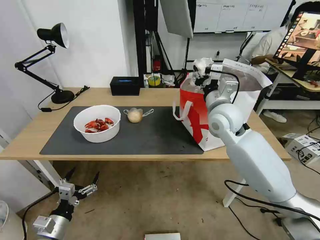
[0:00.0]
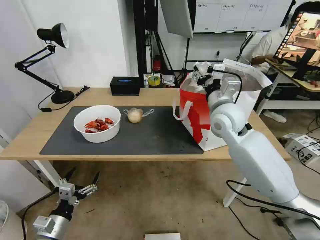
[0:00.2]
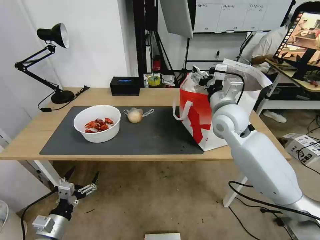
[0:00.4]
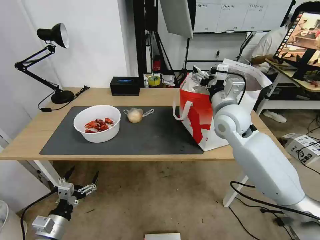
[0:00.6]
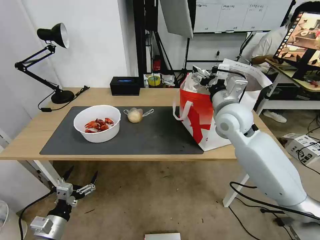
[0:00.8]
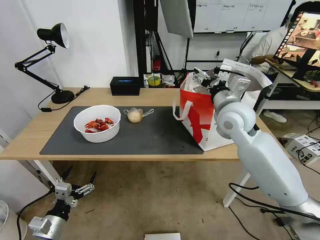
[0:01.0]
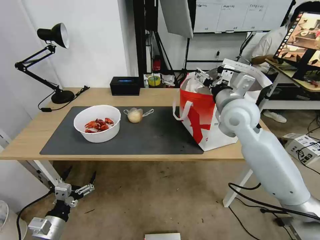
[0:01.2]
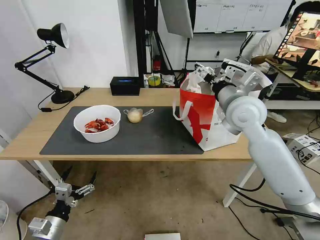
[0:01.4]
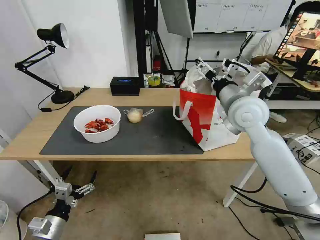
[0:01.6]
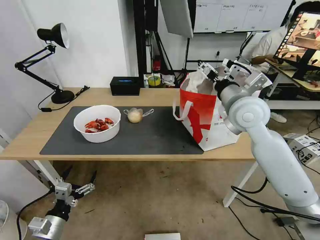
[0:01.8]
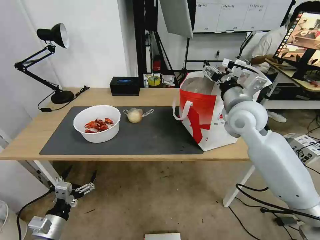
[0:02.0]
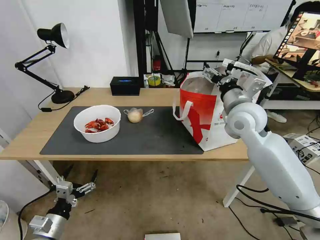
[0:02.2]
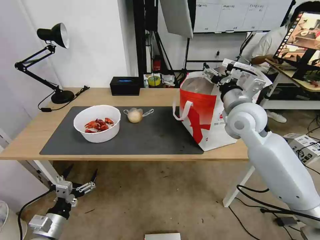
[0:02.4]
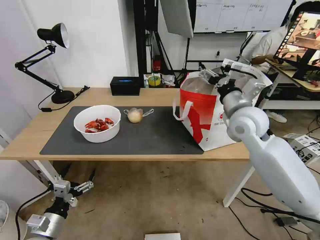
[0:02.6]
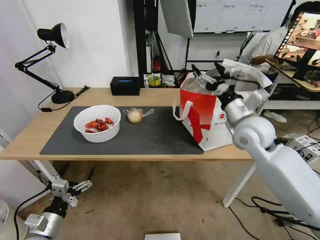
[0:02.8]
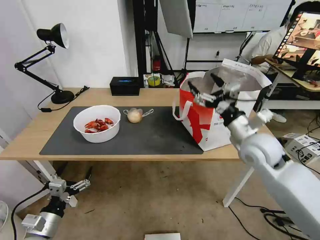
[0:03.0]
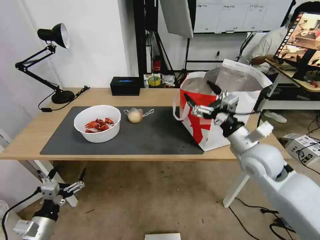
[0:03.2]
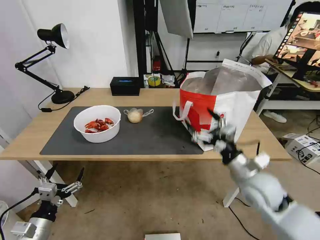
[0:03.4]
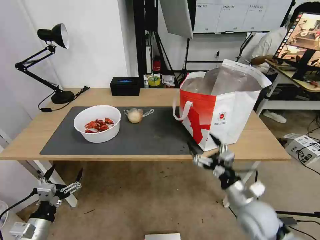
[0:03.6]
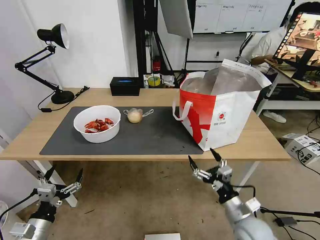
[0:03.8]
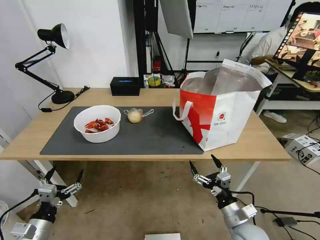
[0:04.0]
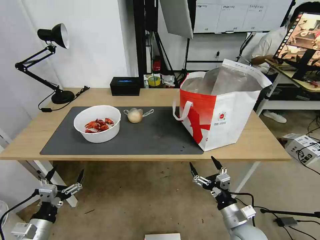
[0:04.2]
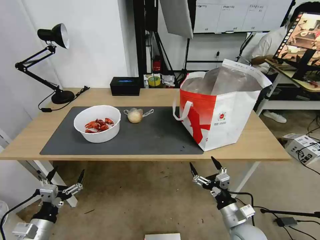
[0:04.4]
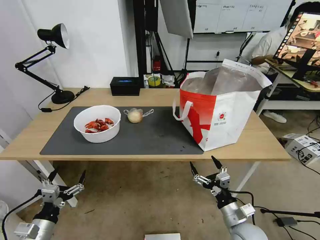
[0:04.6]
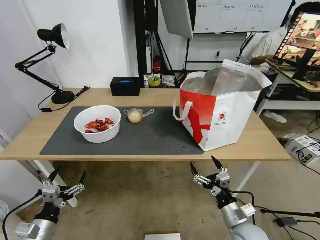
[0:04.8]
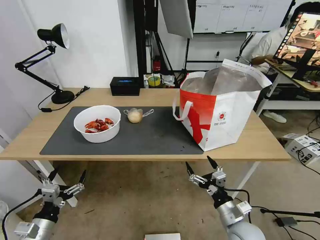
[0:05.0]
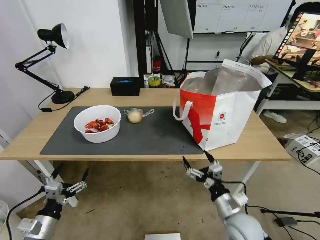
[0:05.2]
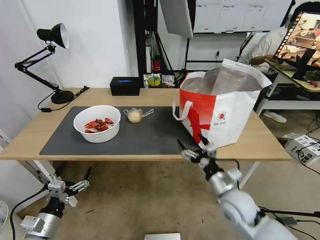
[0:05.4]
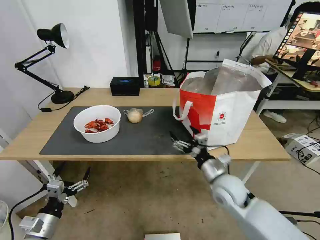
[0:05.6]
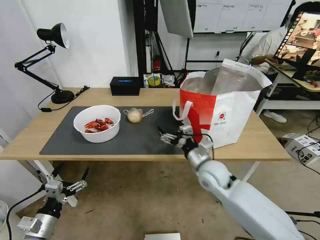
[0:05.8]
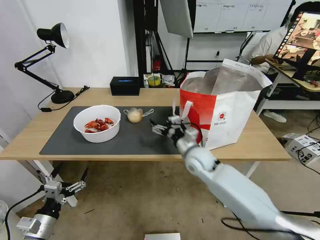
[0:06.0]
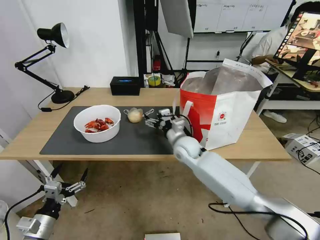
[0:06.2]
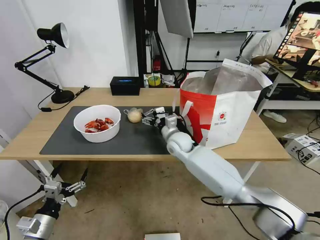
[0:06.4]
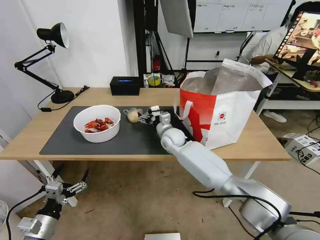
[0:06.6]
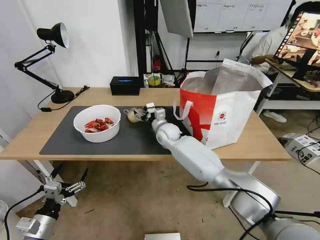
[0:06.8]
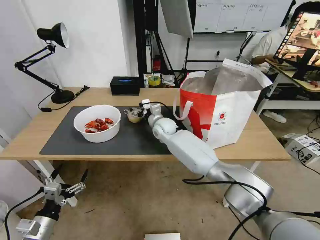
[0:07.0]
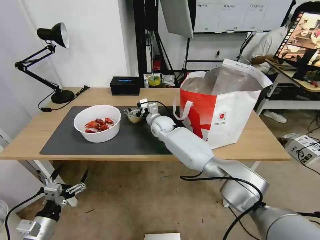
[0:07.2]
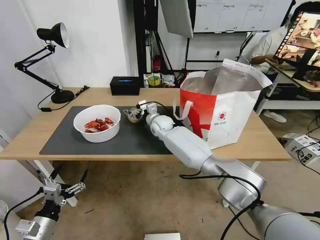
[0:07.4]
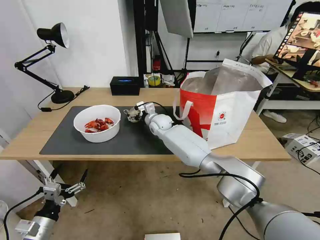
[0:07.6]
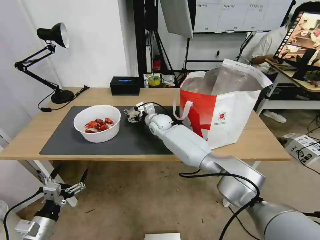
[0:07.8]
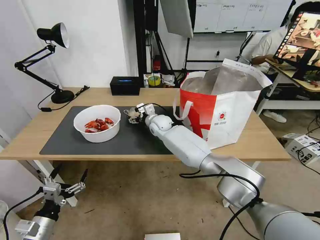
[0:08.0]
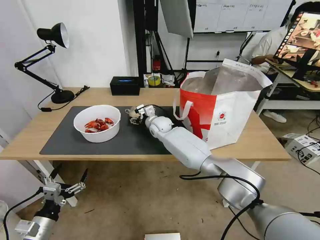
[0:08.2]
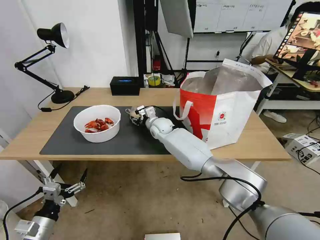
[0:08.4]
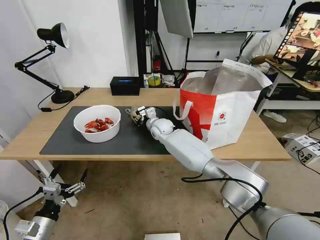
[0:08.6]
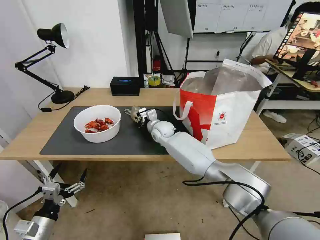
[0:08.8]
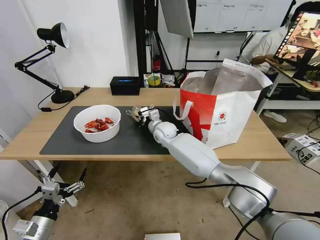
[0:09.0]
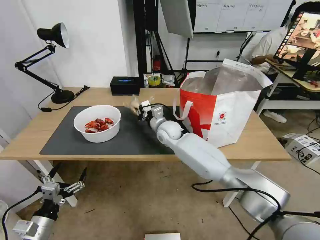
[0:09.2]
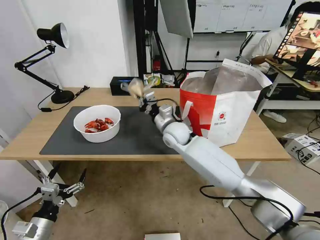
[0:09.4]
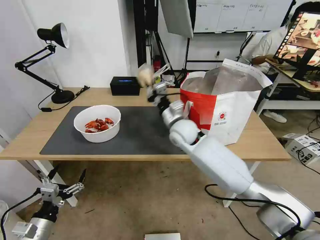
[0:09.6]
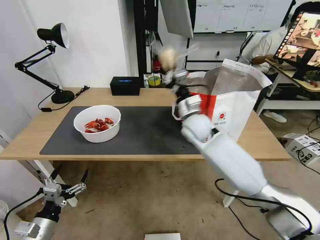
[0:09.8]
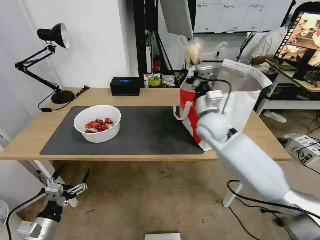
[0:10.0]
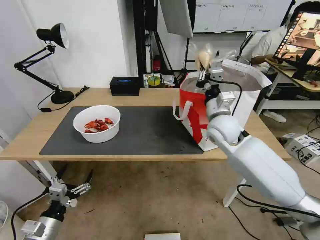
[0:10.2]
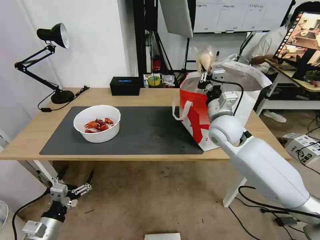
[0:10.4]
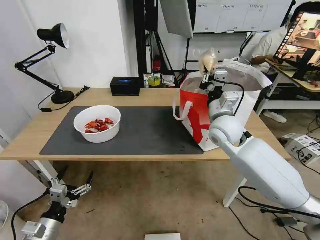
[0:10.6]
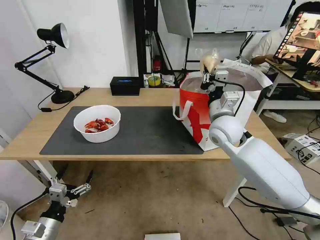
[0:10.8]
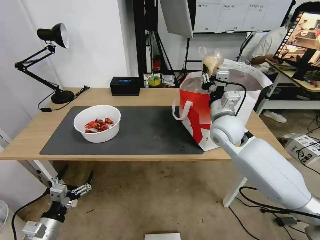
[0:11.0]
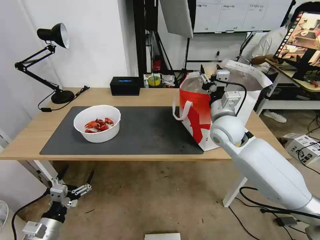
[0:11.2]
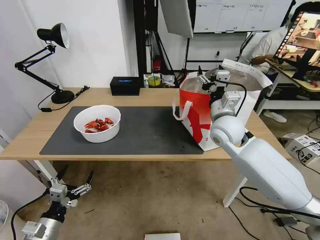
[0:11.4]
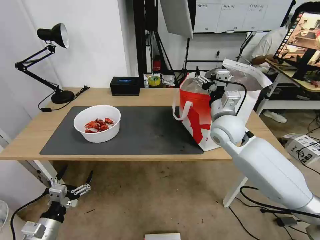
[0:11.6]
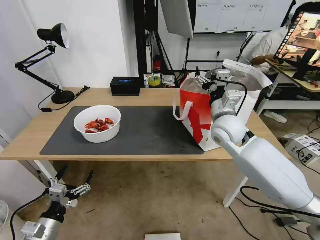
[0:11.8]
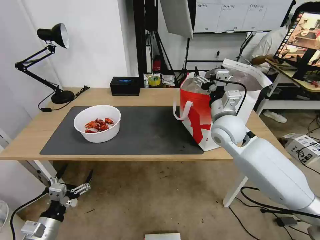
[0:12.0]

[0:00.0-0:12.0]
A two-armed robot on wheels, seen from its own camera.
Task of the whole recording: Pick up the trash from the table and place it into the takeout bag.
0:00.0 to 0:01.6: The right gripper ends up about 5 cm from where it was, and opens its fingers.
0:01.6 to 0:03.0: The right gripper travels downward and backward by roughly 10 cm.
0:03.0 to 0:04.4: The right gripper shifts roughly 30 cm downward and backward.
0:04.4 to 0:06.0: The right gripper is displaced forward, to the left and upward by some 30 cm.
0:06.0 to 0:07.6: The right gripper heads forward and to the left, covering about 20 cm.
0:07.6 to 0:09.0: The right gripper closes its fingers.
0:09.0 to 0:10.4: The right gripper is displaced to the right, upward and backward by roughly 25 cm.
0:10.4 to 0:12.0: The right gripper opens its fingers.

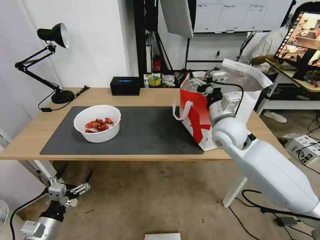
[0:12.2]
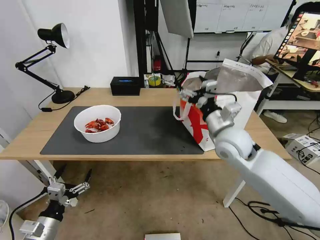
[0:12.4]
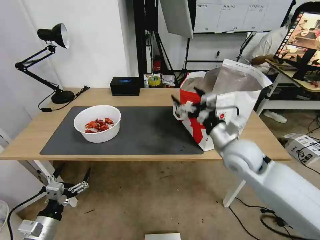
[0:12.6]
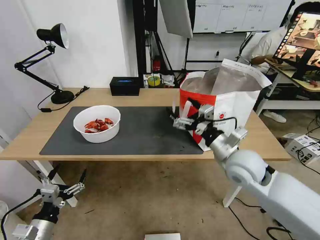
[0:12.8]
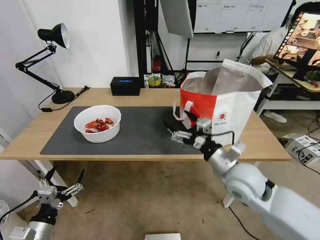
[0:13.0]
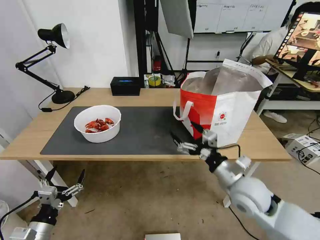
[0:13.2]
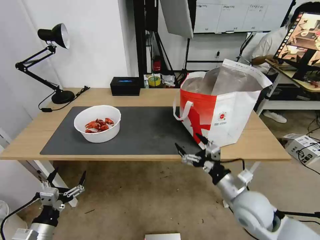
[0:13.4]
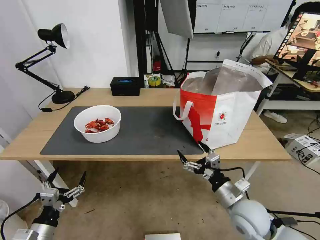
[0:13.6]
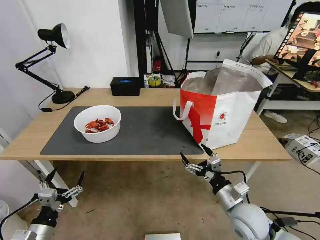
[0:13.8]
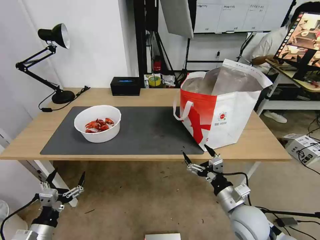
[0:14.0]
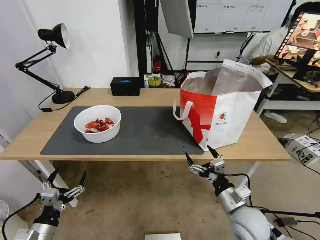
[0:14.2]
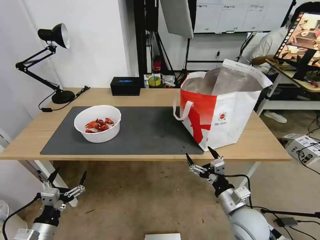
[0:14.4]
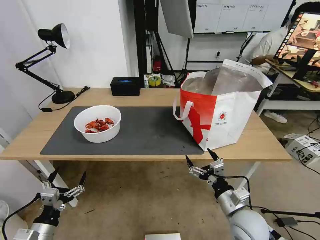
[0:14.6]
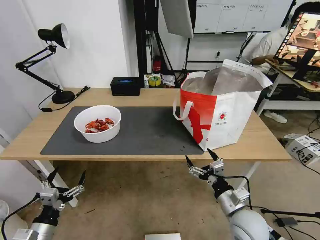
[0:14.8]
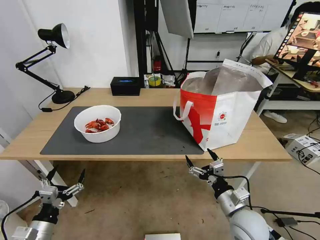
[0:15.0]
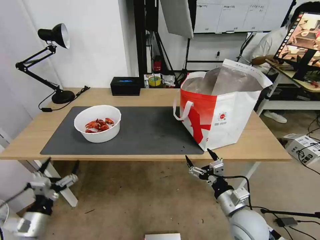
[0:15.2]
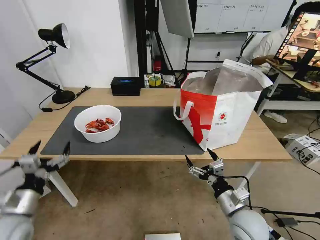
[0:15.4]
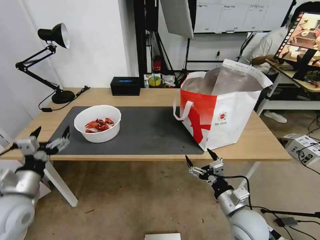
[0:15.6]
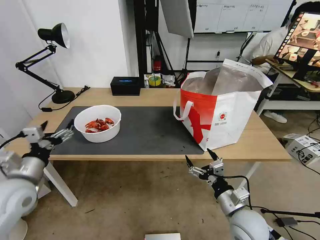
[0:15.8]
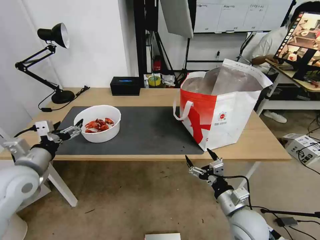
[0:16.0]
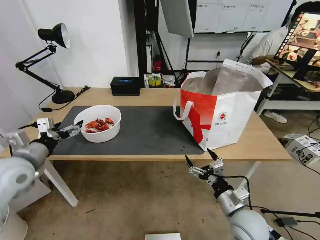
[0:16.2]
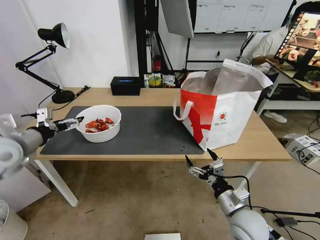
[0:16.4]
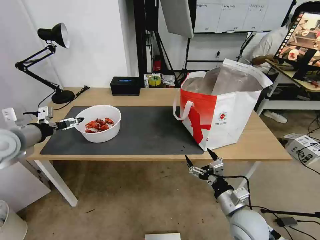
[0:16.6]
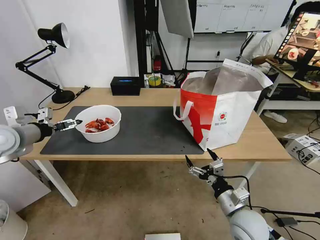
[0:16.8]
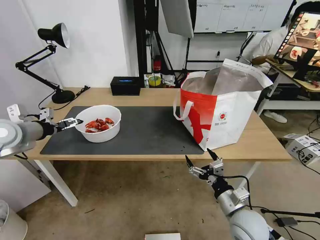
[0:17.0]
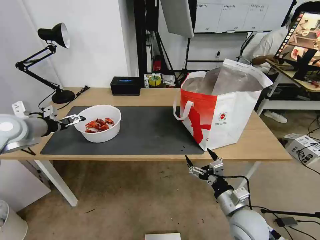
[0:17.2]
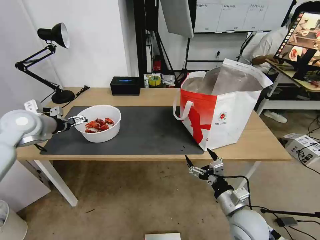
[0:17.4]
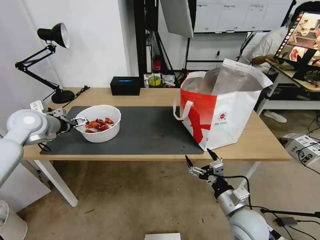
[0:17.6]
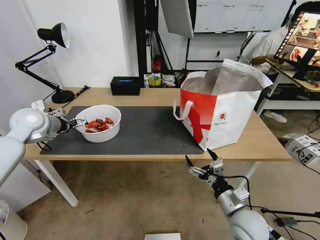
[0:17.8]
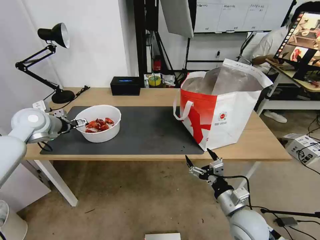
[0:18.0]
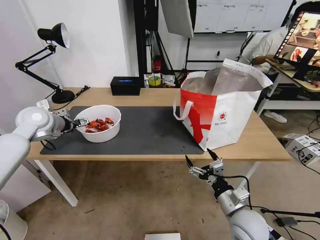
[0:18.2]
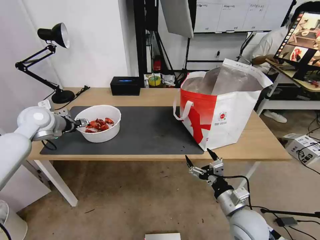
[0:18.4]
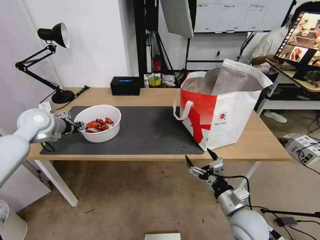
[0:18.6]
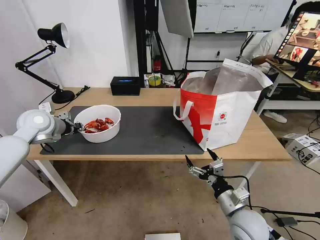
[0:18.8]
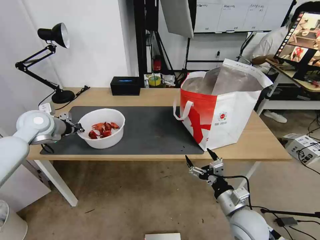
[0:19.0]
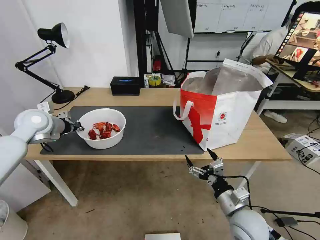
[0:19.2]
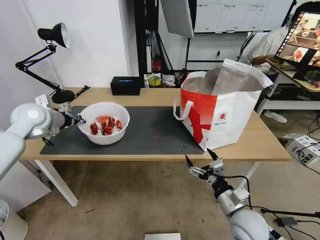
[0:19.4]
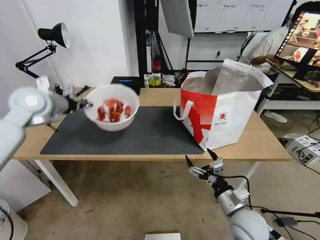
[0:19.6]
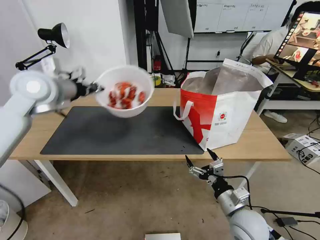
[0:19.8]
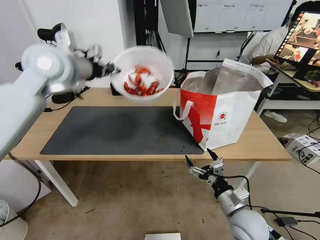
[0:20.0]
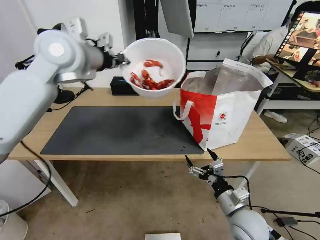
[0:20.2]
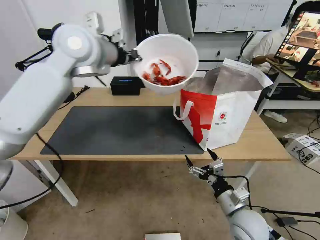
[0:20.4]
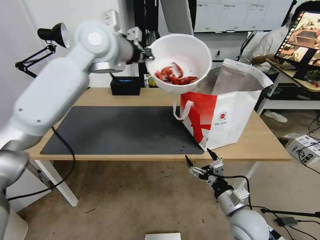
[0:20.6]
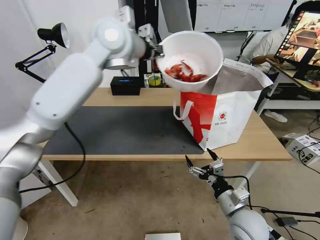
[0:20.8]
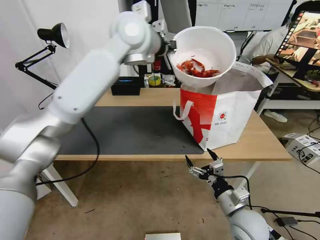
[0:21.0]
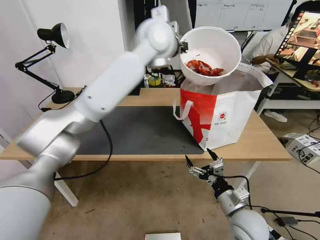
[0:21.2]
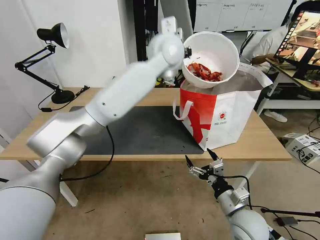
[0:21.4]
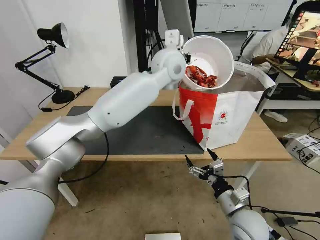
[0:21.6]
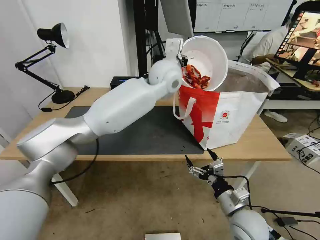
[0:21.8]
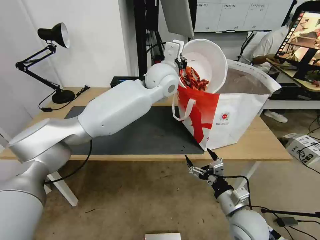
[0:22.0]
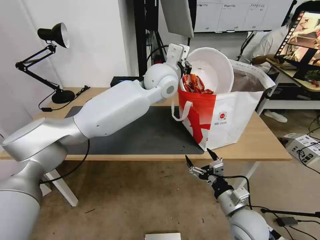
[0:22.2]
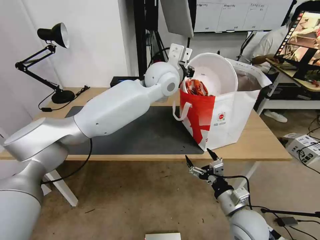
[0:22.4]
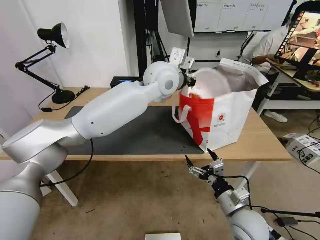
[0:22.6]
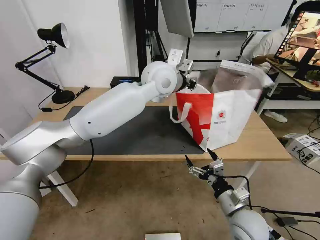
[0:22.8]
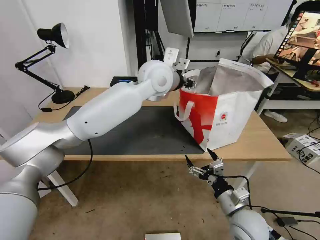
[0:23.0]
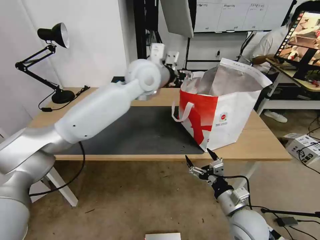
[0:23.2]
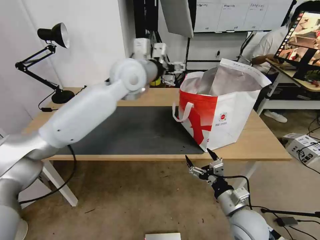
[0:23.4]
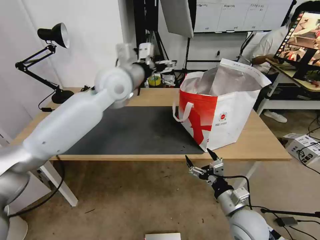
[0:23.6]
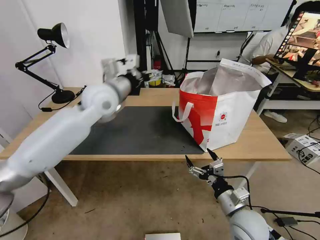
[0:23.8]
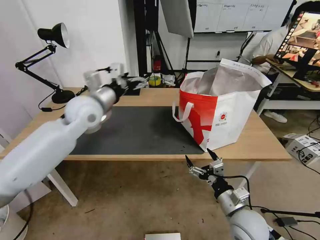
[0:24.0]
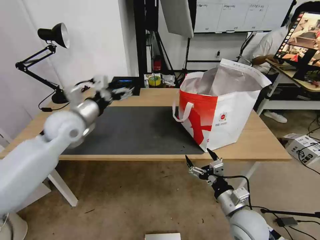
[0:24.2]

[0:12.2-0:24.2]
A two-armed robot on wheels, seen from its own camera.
Task of the whole recording: Pick up the trash from the table and place it into the takeout bag.
0:12.2 to 0:13.8: The right gripper shifts some 25 cm backward and downward.
0:13.8 to 0:15.2: The grippers make only small movements.
0:15.2 to 0:16.6: The left gripper travels upward and forward by roughly 30 cm.
0:16.6 to 0:18.2: The left gripper shifts about 10 cm forward.
0:18.2 to 0:19.8: The left gripper moves upward and to the right, about 15 cm, and closes its fingers.
0:19.8 to 0:21.2: The left gripper shifts about 30 cm to the right.
0:21.2 to 0:22.6: The left gripper is displaced downward by roughly 10 cm.
0:22.6 to 0:24.2: The left gripper moves to the left and downward, approximately 30 cm, and opens up.
